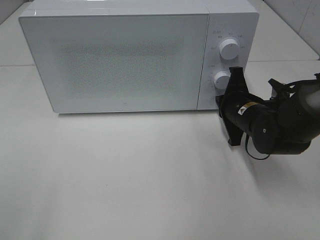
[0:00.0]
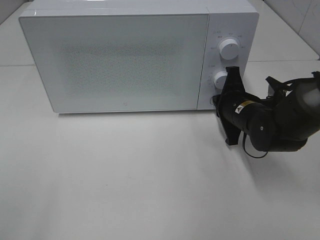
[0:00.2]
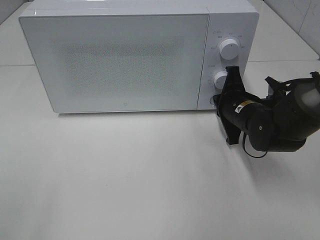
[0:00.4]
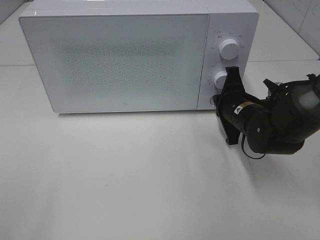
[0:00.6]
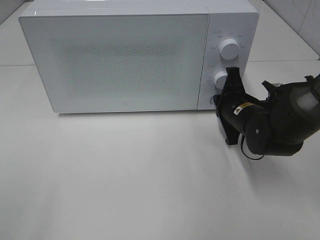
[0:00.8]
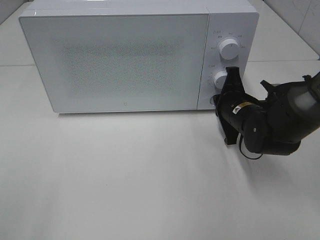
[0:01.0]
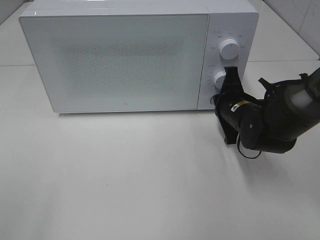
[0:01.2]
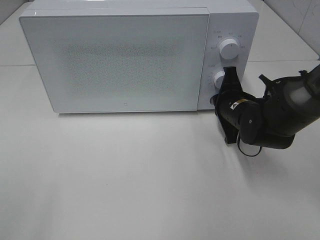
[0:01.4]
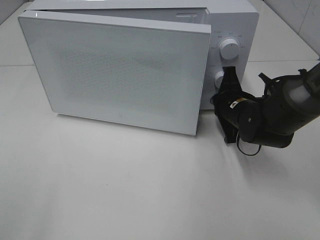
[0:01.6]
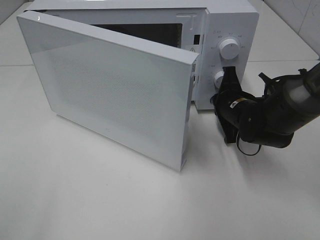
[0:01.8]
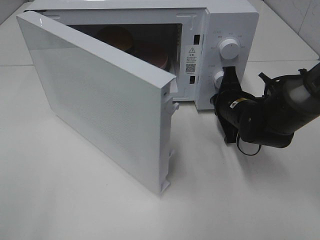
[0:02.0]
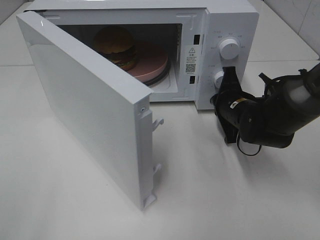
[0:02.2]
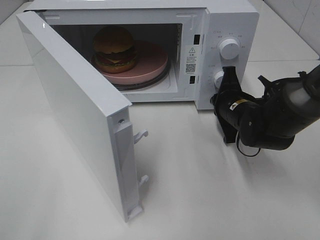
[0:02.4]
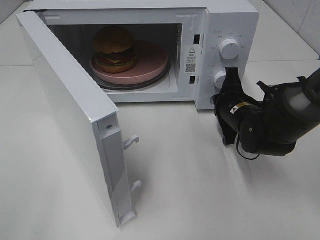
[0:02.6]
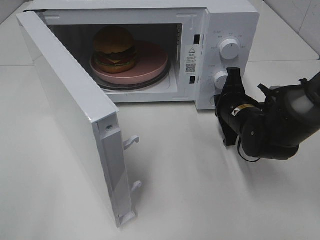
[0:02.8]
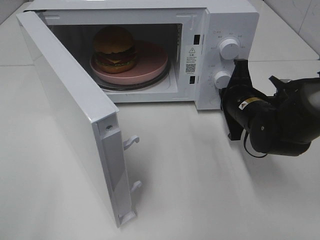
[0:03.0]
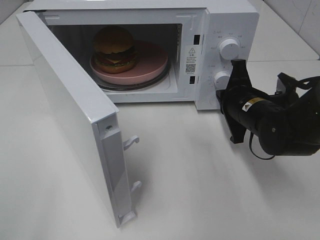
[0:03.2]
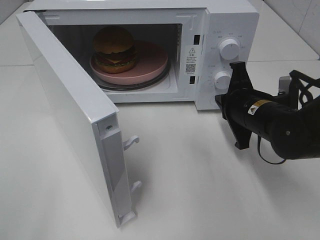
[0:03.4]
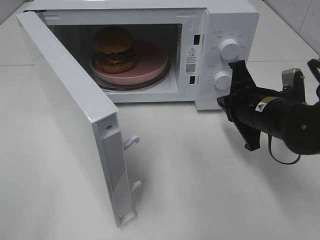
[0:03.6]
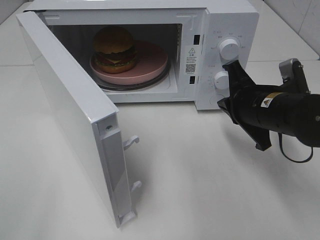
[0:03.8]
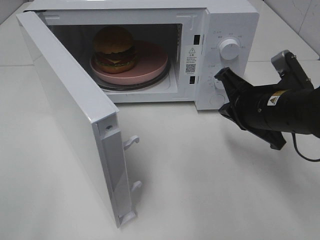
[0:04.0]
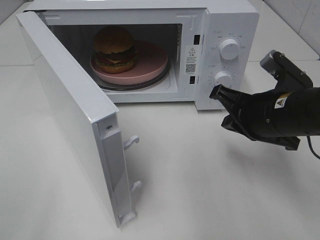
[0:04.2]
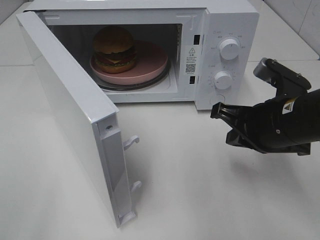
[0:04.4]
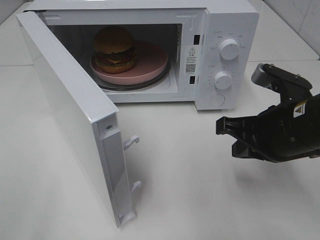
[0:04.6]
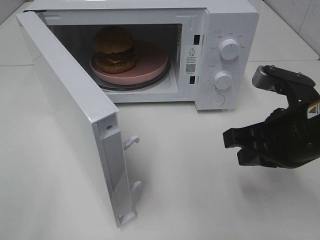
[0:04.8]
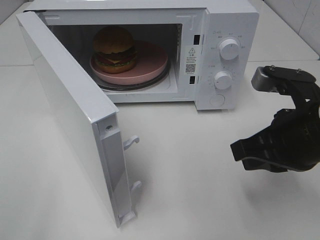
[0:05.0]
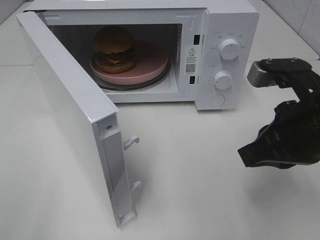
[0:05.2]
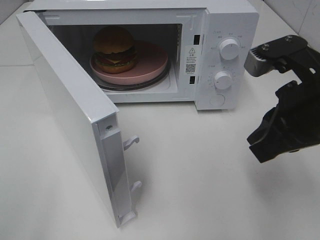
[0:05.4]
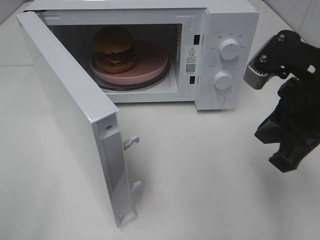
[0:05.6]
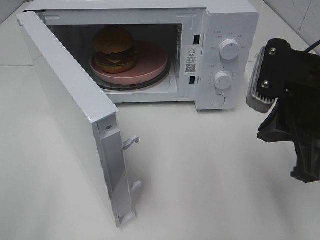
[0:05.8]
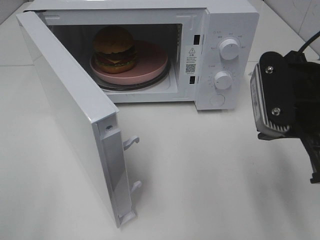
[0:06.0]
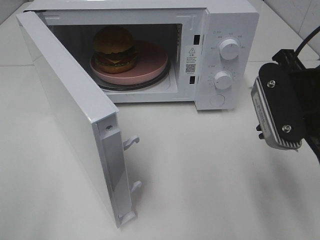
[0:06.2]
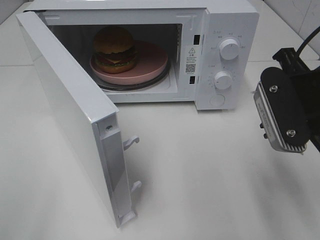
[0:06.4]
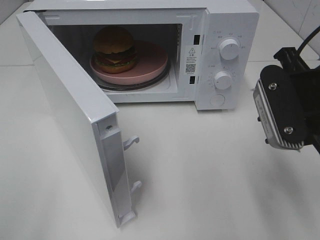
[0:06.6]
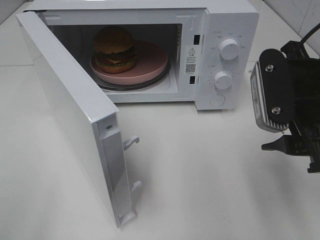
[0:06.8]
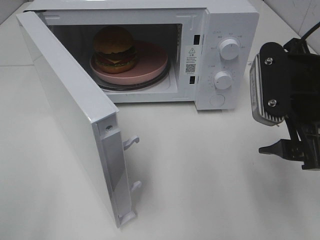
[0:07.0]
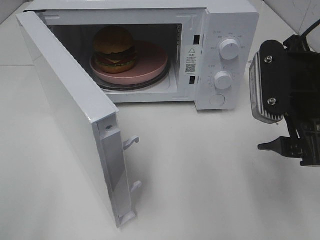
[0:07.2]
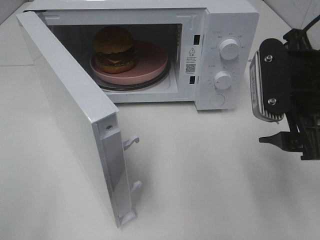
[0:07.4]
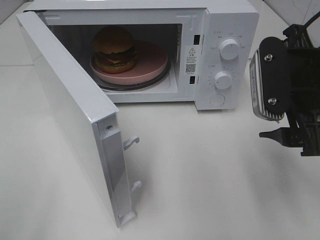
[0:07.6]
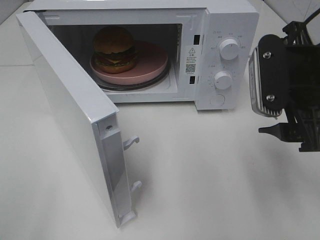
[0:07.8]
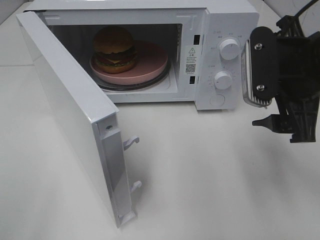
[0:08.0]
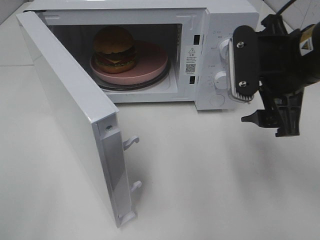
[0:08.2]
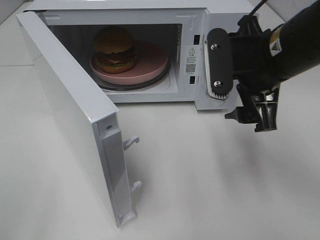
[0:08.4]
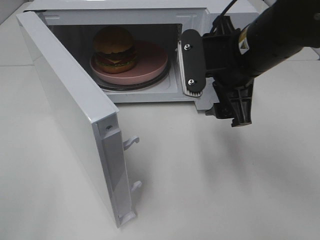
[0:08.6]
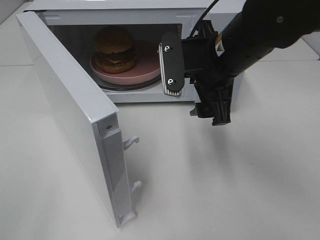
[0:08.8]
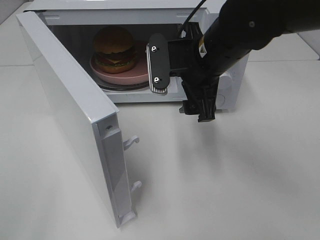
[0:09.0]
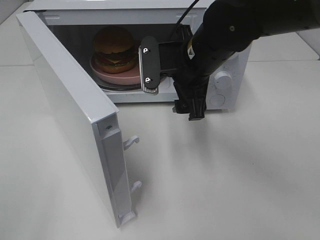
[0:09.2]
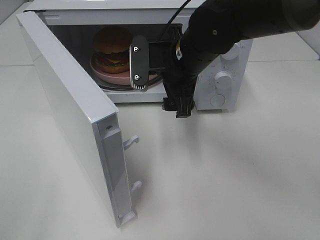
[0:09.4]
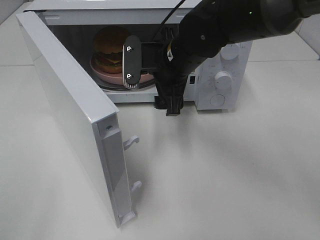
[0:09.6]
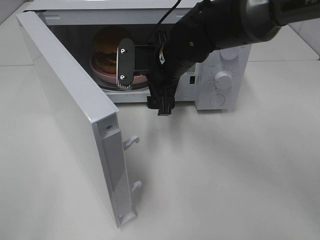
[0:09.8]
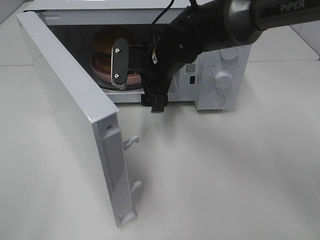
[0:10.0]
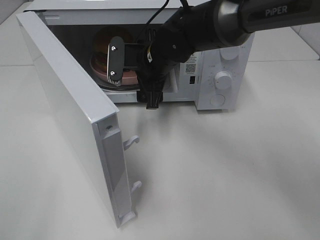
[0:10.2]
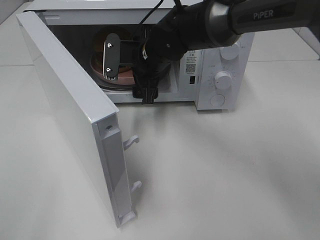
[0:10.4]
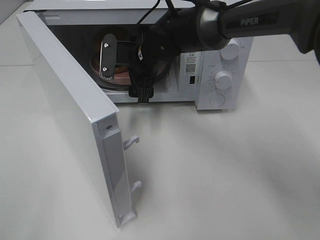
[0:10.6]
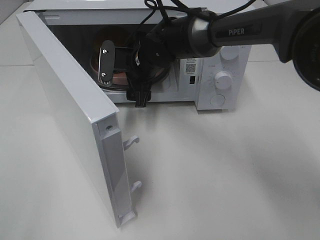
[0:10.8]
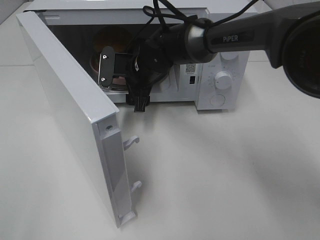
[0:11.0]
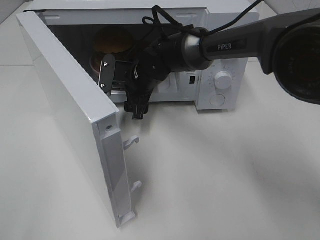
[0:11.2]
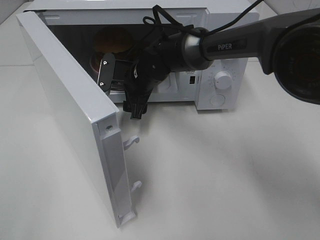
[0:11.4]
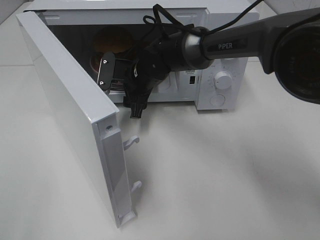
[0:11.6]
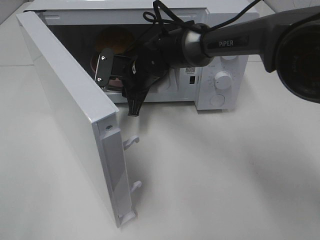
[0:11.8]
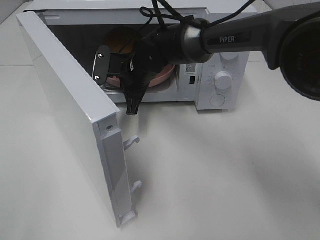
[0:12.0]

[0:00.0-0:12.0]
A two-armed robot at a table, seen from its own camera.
Task of the whole recording: Heat the burger.
Step, 0:00.0 to 0:02.8: Right hand: press the switch.
Step, 0:03.0 to 0:11.8: Right hand: grab the plate with the hamburger.
0:00.0 to 0:01.6: The grippers make only small movements.
0:03.0 to 0:04.4: The right gripper heads backward and upward, covering approximately 10 cm.
0:04.4 to 0:06.0: The right gripper shifts some 10 cm upward.
0:06.0 to 0:07.6: The right gripper opens its fingers.
0:07.6 to 0:09.0: The right gripper goes approximately 15 cm to the left and forward.
0:09.0 to 0:10.4: The right gripper travels forward, to the left and downward by approximately 15 cm.
0:10.4 to 0:12.0: The right gripper closes up.

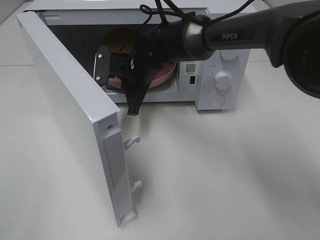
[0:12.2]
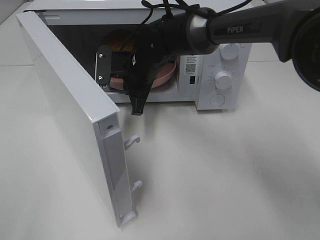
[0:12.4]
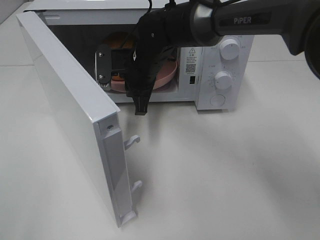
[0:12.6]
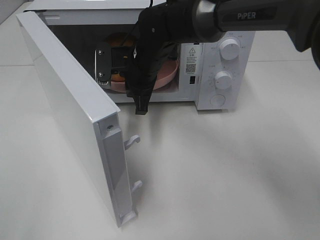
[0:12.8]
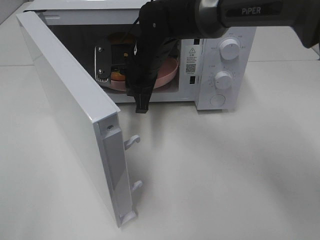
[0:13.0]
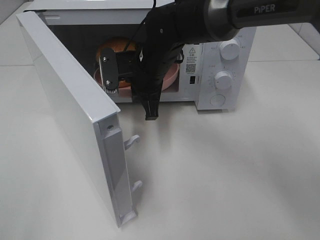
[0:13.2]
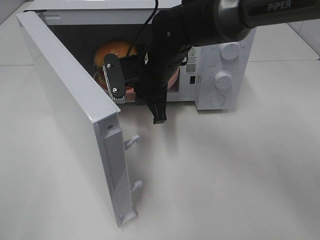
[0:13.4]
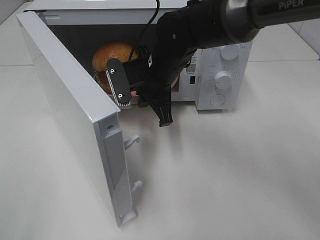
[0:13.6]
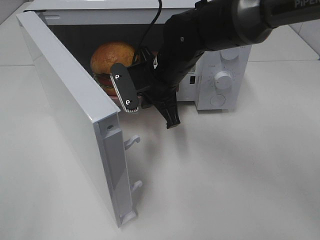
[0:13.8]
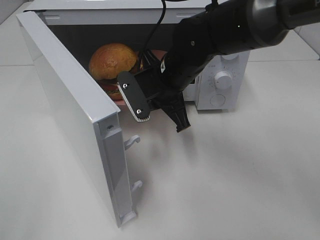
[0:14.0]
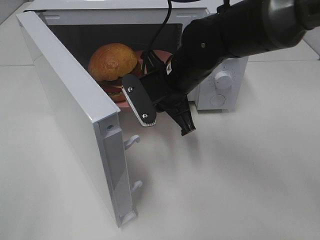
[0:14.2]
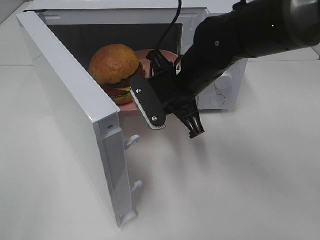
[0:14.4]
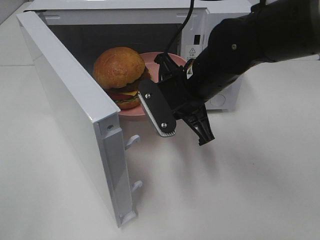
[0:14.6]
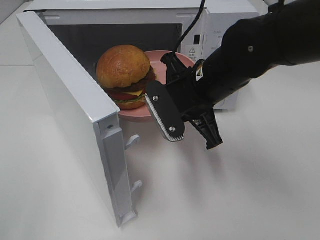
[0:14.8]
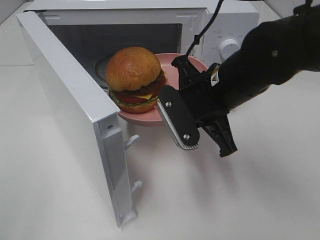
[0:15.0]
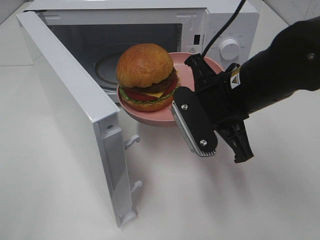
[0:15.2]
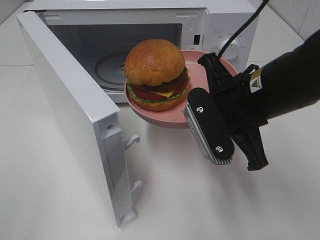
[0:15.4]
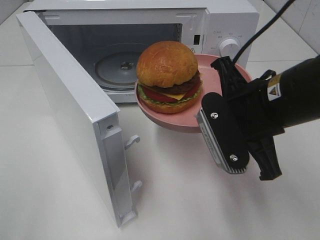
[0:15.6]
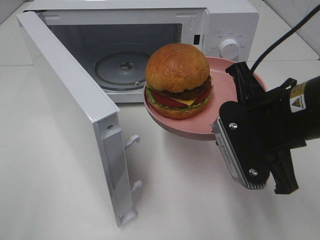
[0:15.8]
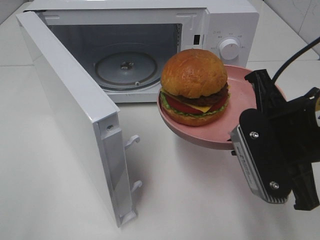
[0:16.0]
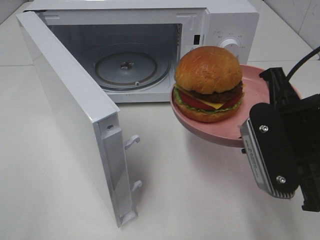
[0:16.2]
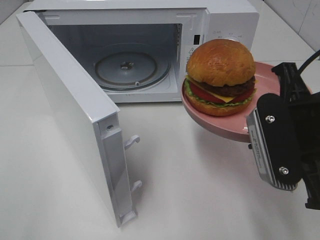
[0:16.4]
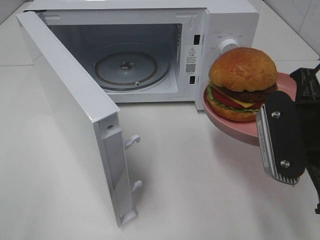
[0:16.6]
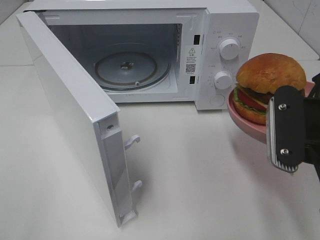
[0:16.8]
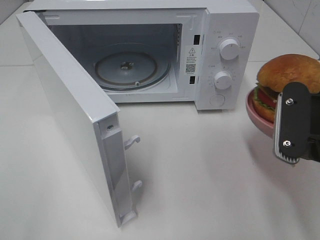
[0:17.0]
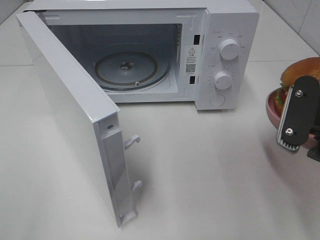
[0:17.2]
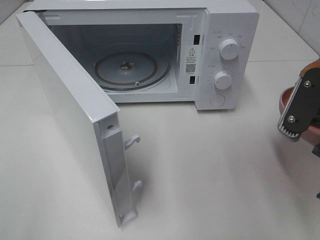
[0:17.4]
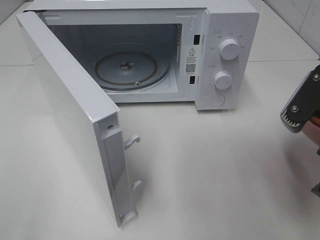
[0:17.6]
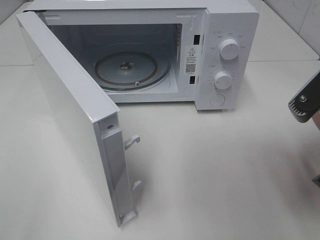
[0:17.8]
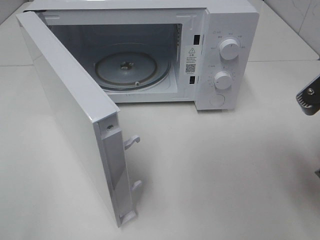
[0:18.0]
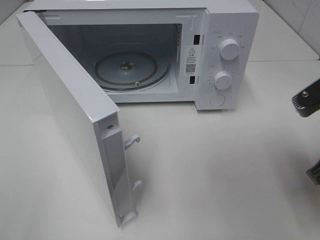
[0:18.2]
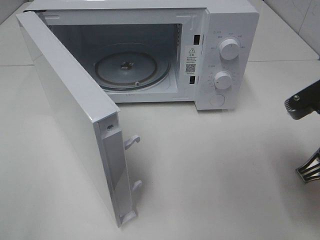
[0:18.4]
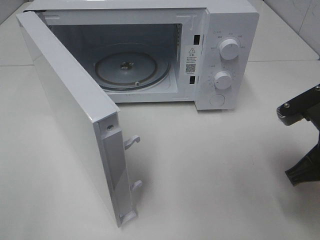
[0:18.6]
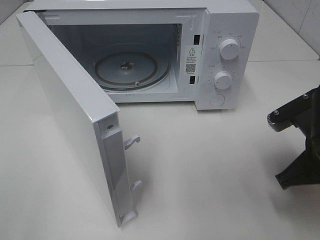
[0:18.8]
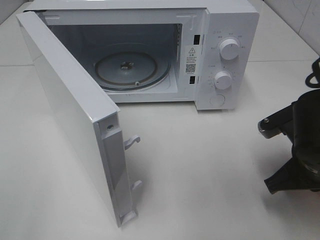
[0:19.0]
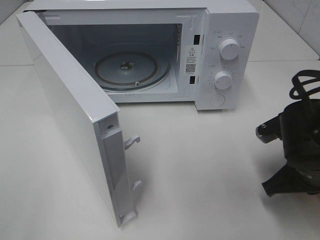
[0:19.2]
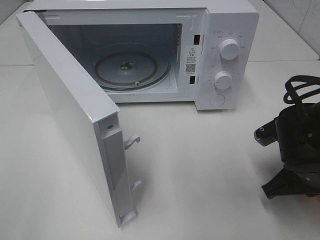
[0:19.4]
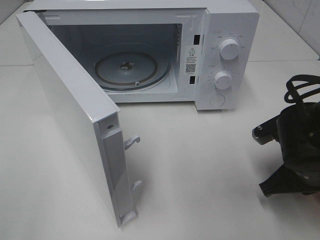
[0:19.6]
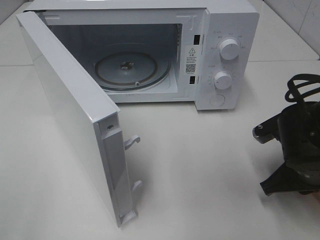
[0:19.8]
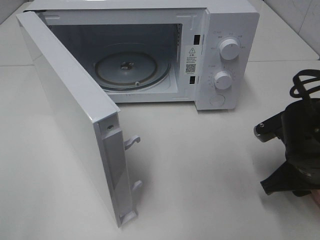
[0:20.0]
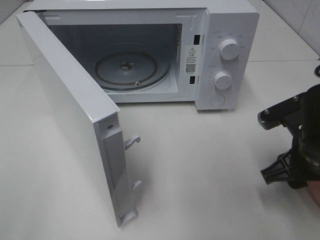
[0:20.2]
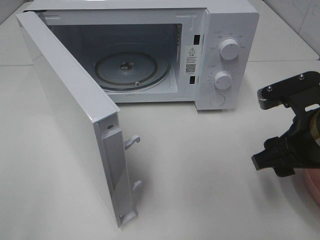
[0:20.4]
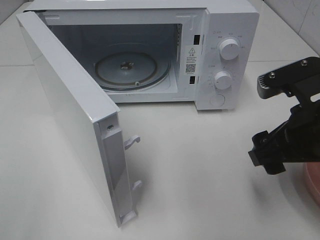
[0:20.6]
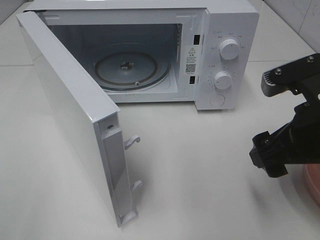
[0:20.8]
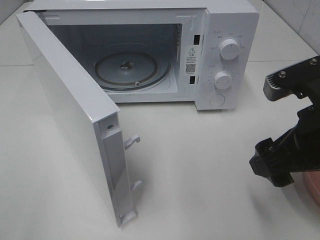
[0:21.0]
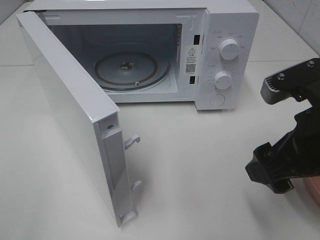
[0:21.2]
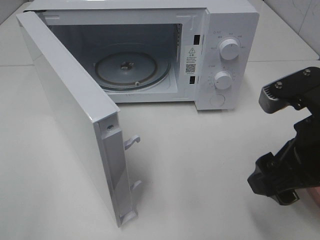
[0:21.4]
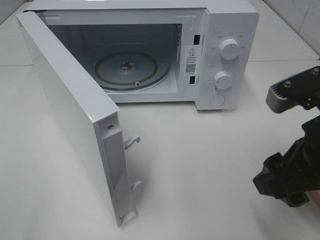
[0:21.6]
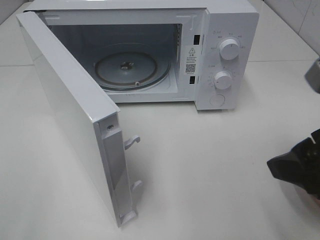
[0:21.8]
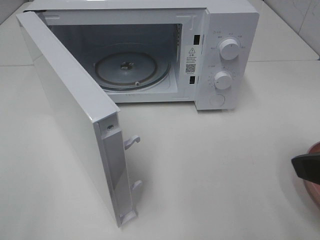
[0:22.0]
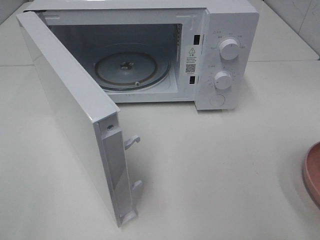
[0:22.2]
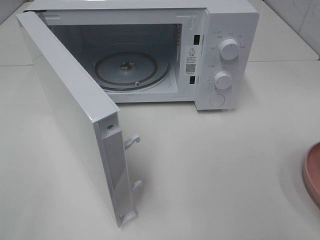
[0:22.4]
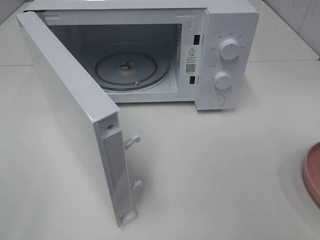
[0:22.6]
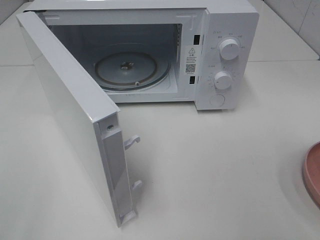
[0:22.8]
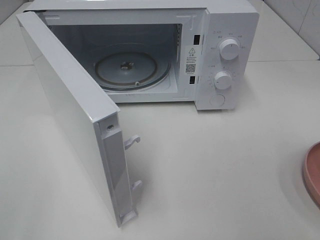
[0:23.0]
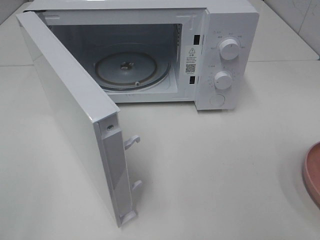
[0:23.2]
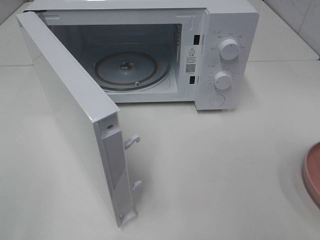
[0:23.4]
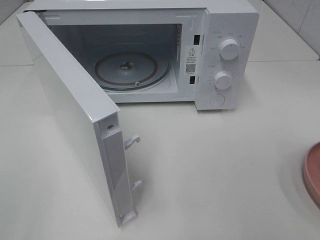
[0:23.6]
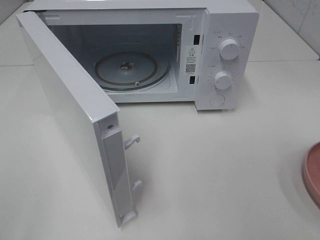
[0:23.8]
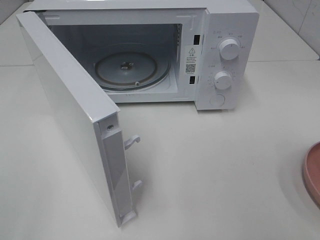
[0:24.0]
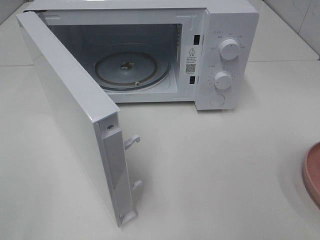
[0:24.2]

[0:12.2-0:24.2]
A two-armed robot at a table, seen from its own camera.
Task of the whole recording: Heat the burger.
Step, 0:12.2 to 0:19.8: Right hand: place the plate on the table.
0:12.2 to 0:13.8: The right gripper moves backward, about 5 cm.
0:13.8 to 0:15.2: The right gripper is displaced backward and to the right by about 15 cm.
0:15.2 to 0:16.6: The right gripper goes about 10 cm backward and to the right.
0:18.2 to 0:19.8: The right gripper is displaced downward by roughly 10 cm.
0:19.8 to 0:21.2: The right gripper travels upward by some 10 cm, and opens.
0:21.2 to 0:22.6: The right gripper heads backward, to the right and upward, covering some 20 cm.
